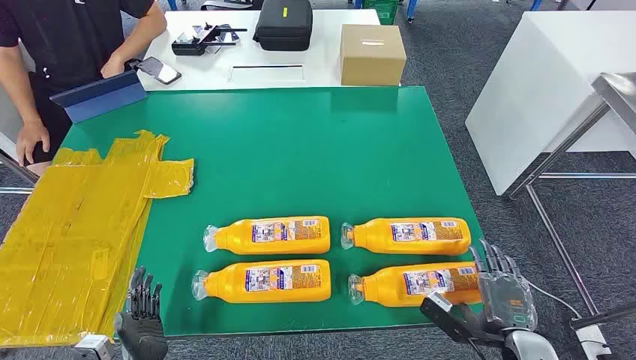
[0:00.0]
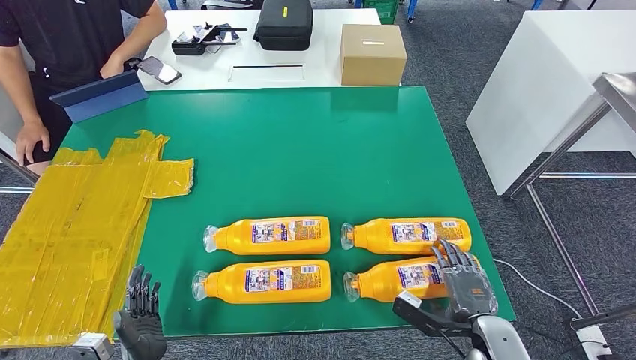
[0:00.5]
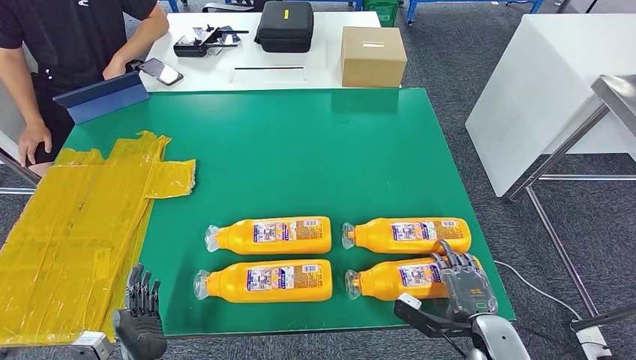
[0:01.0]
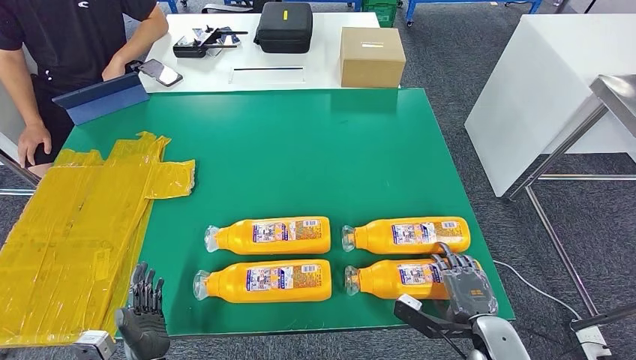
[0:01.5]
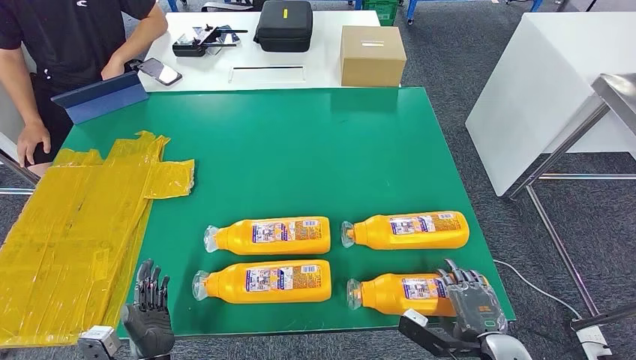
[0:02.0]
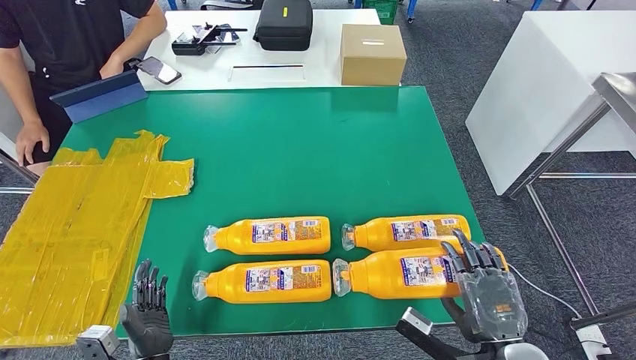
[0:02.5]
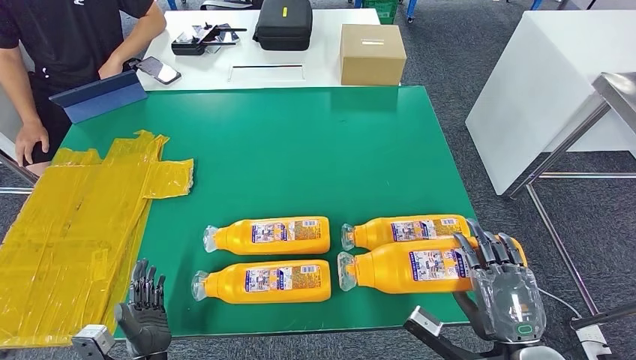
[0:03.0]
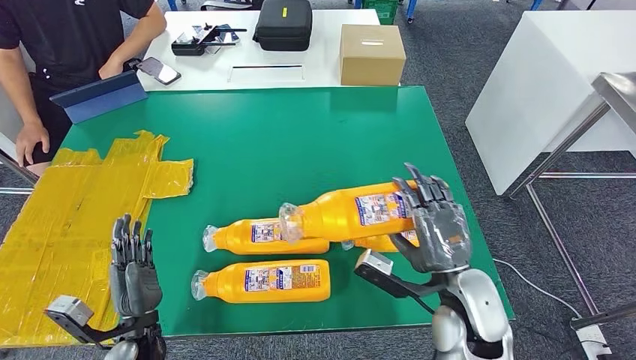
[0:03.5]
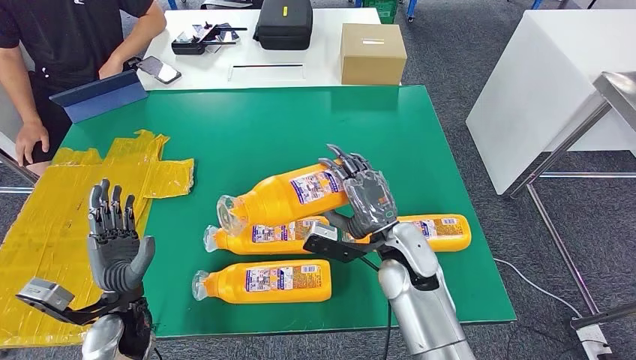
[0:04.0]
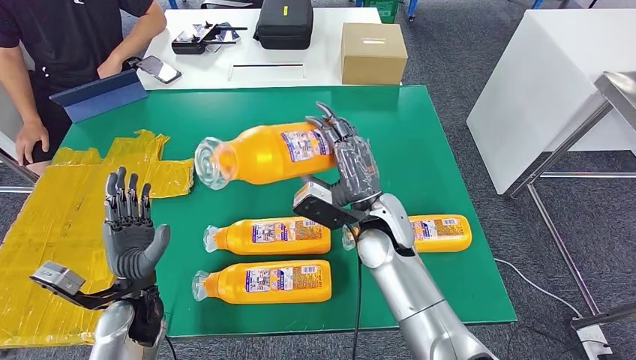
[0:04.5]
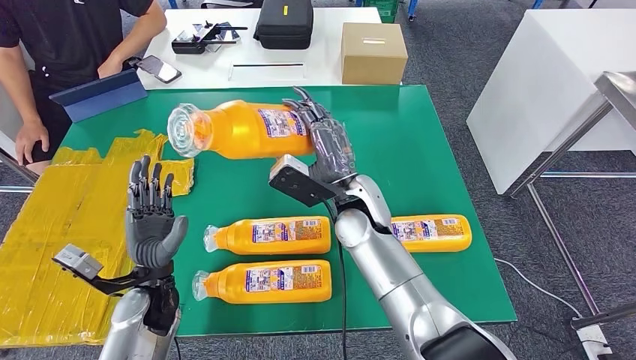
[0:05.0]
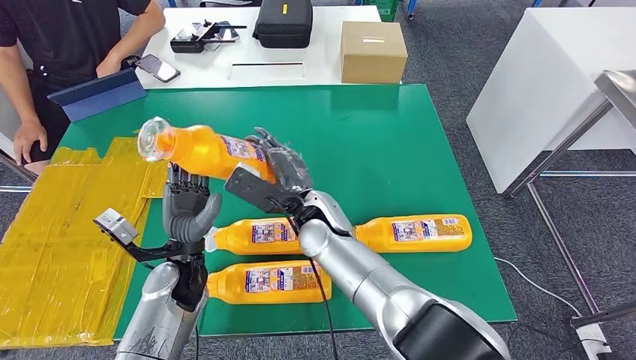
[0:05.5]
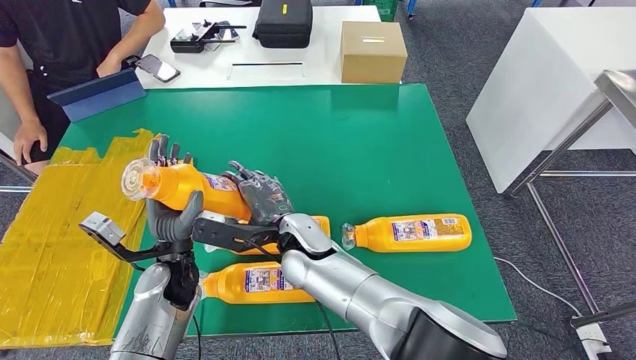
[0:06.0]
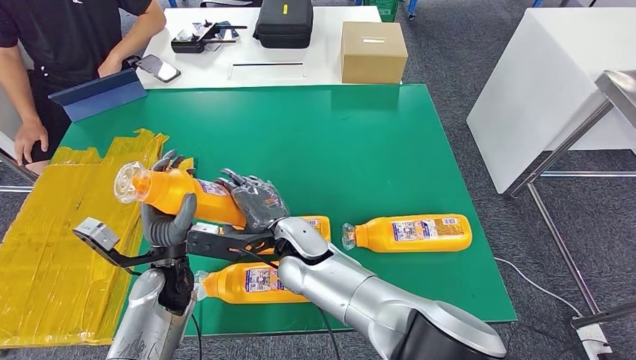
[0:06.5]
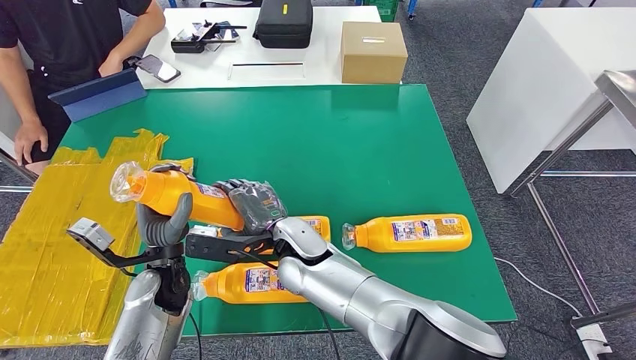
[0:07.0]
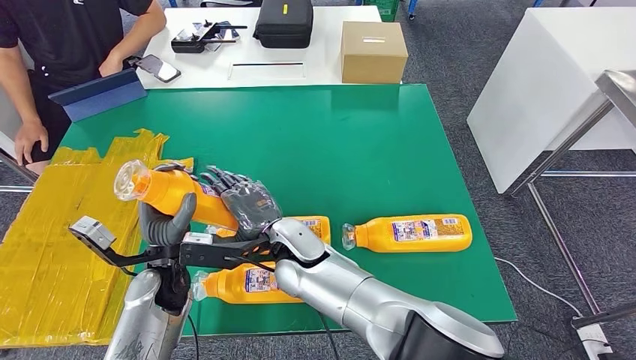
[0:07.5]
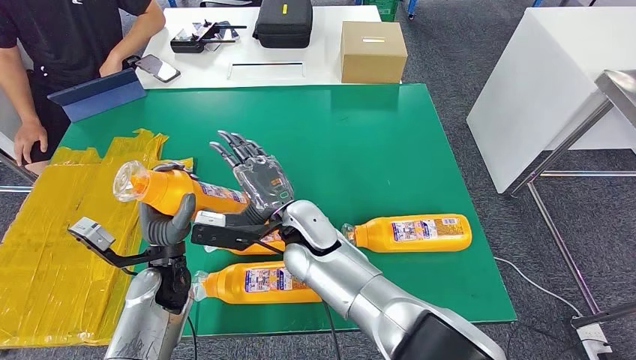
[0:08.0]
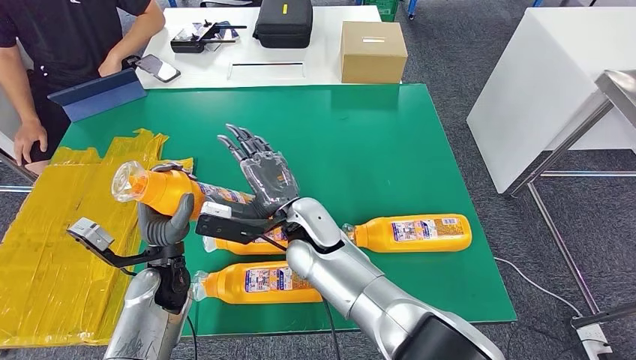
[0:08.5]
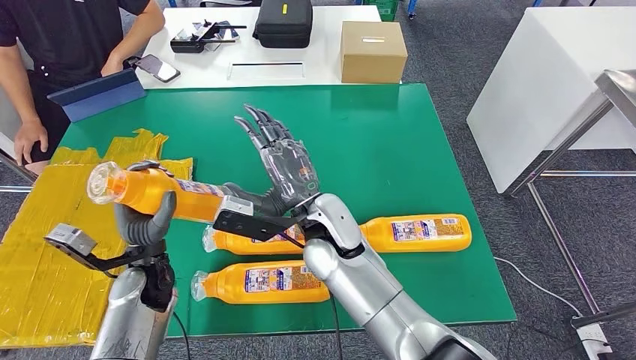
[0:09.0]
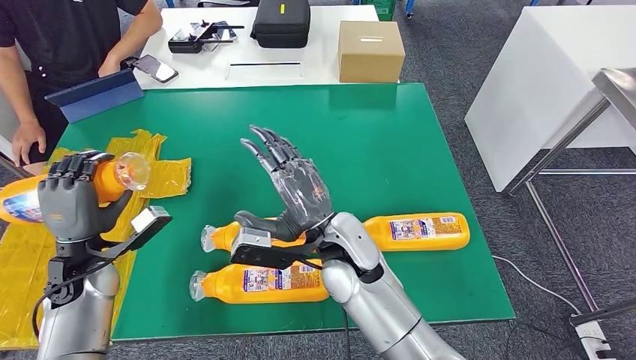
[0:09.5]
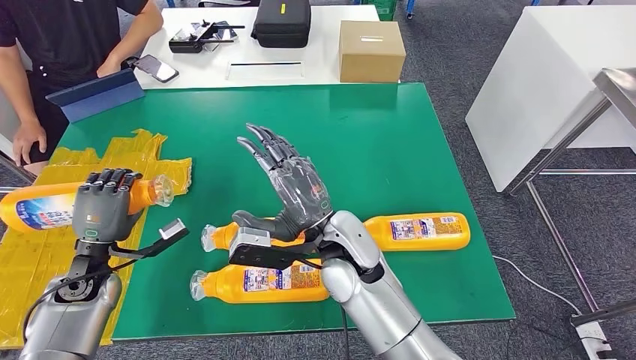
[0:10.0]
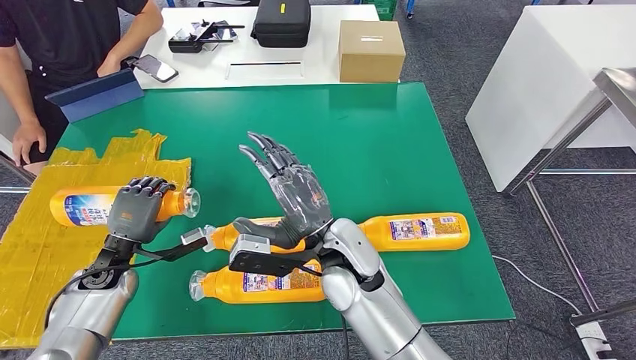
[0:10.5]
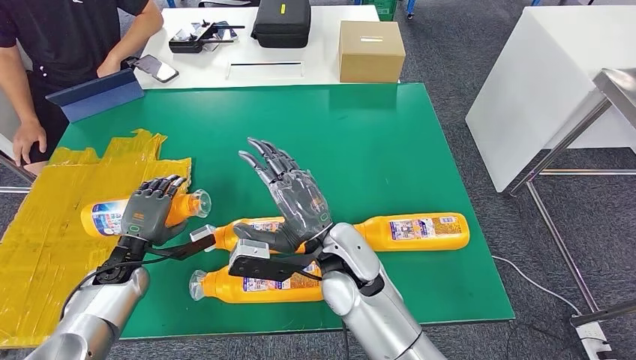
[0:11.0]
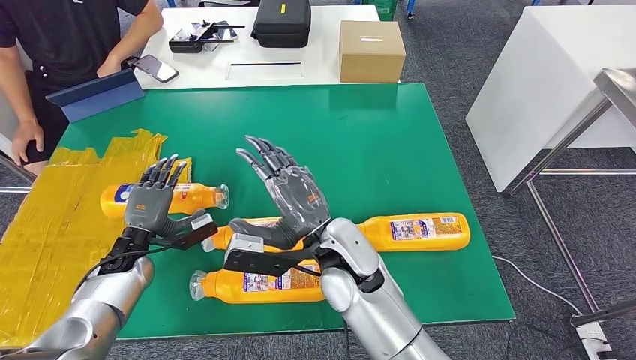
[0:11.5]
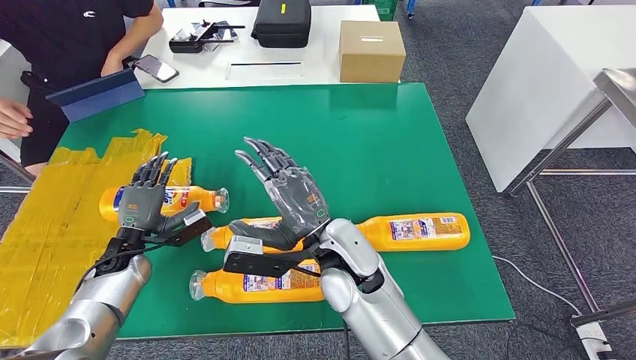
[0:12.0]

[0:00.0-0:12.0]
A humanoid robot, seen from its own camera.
Step, 0:00.0 to 0:04.5: Take the fast-moving consumer goods bottle from the table.
0:02.0 to 0:04.0: The right hand travels forward, to the left and upward by roughly 25 cm. Meanwhile the left hand moves upward and forward, some 15 cm.
0:06.0 to 0:08.0: The hands move only a little.
0:10.0 to 0:12.0: The left hand ends up some 5 cm from where it was.

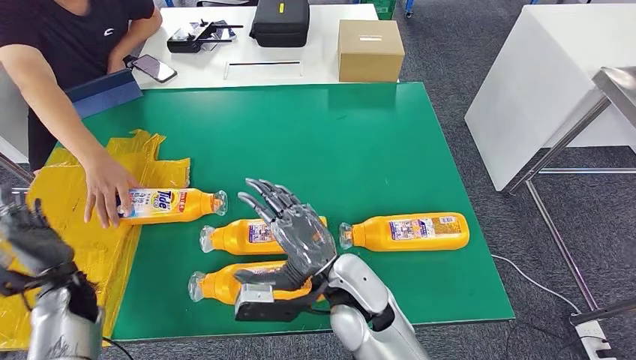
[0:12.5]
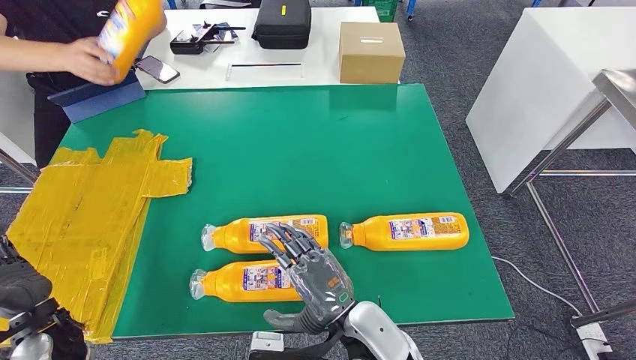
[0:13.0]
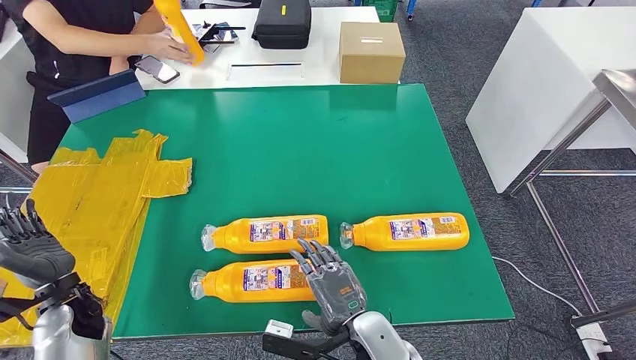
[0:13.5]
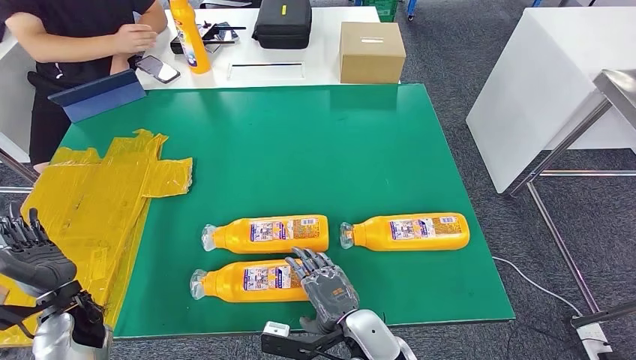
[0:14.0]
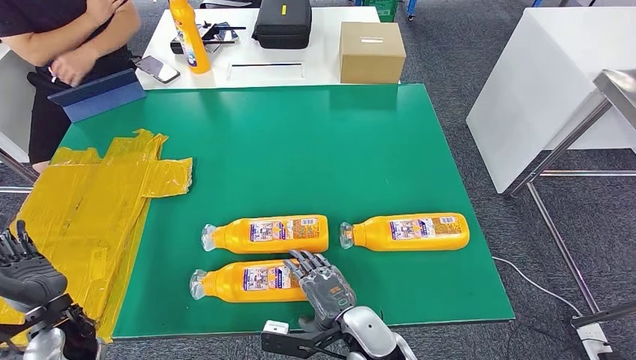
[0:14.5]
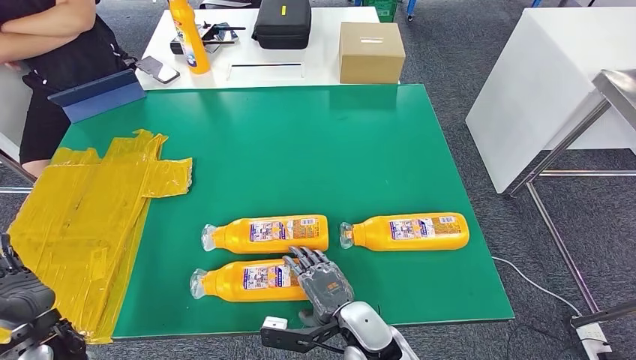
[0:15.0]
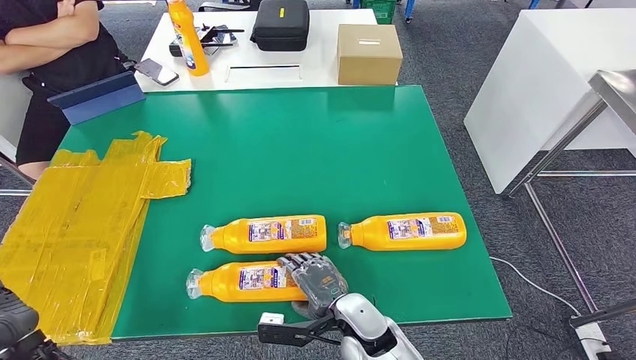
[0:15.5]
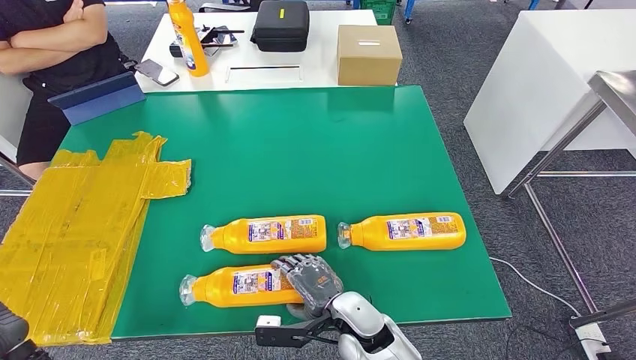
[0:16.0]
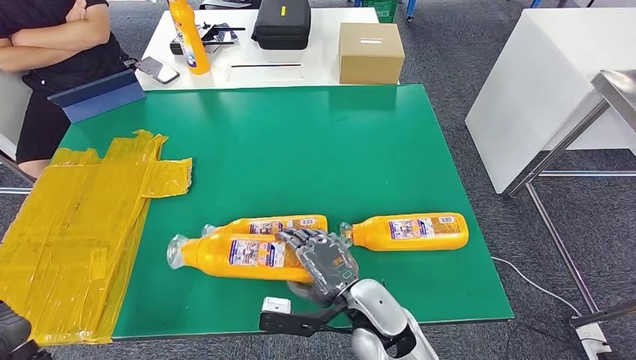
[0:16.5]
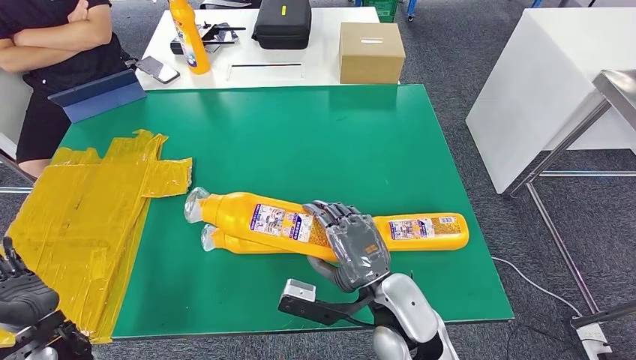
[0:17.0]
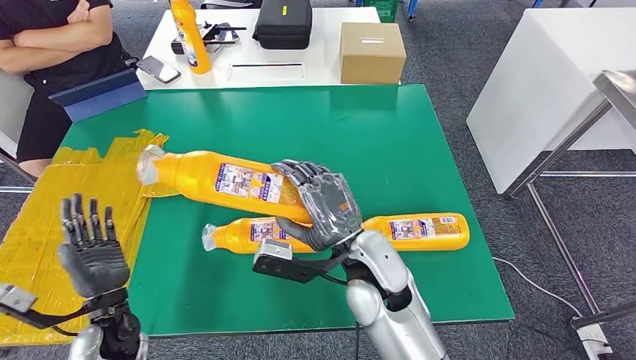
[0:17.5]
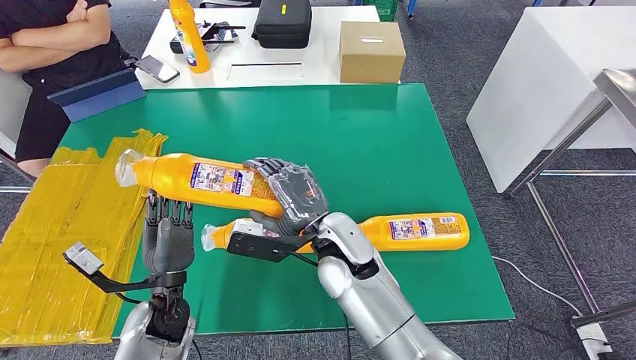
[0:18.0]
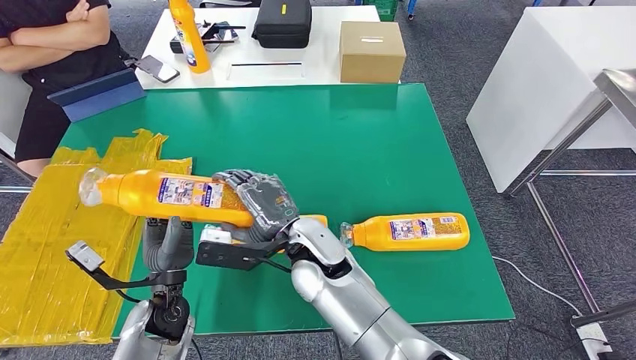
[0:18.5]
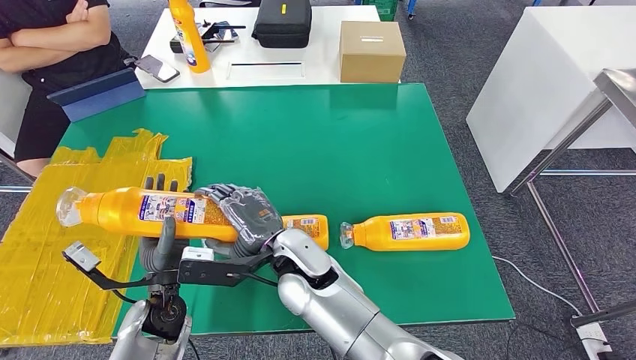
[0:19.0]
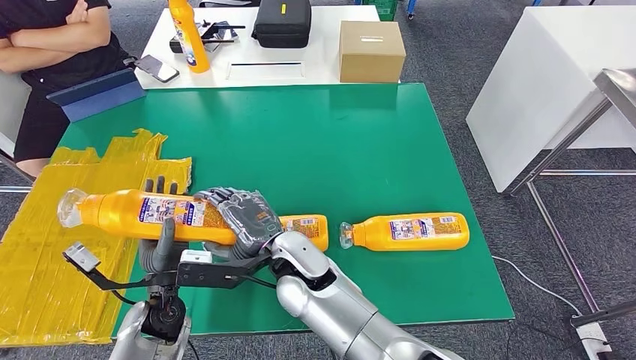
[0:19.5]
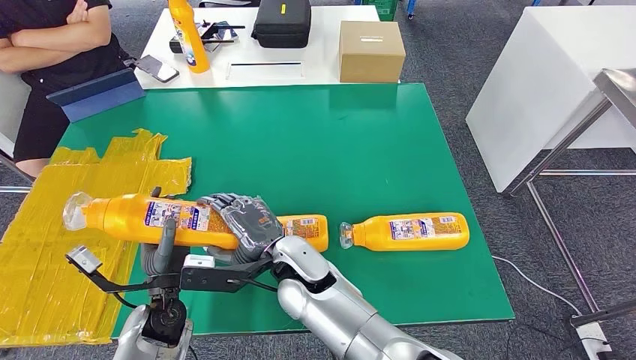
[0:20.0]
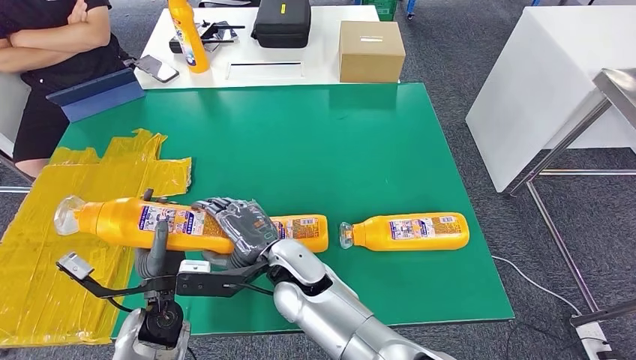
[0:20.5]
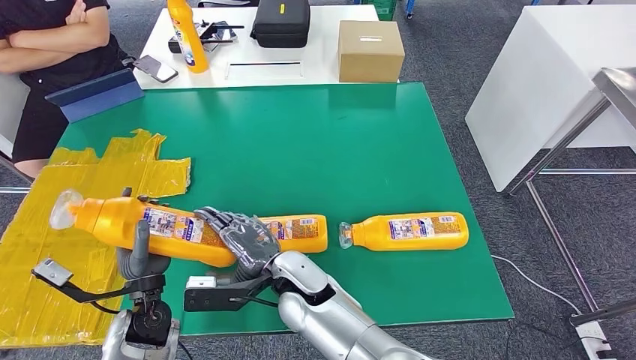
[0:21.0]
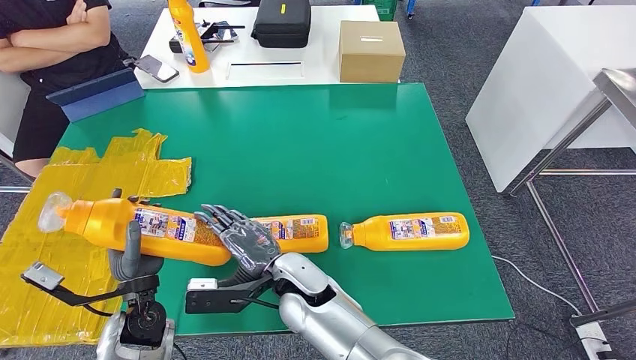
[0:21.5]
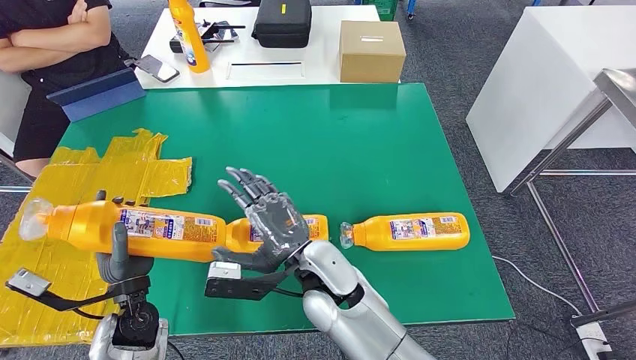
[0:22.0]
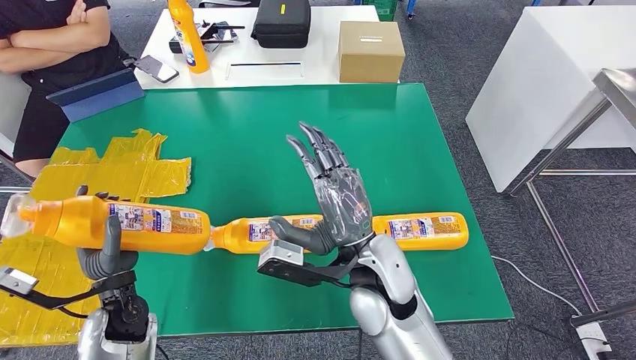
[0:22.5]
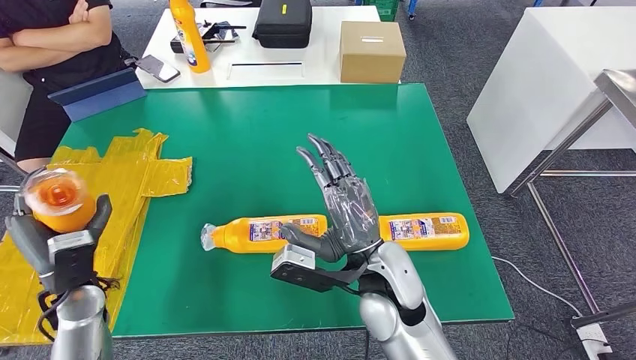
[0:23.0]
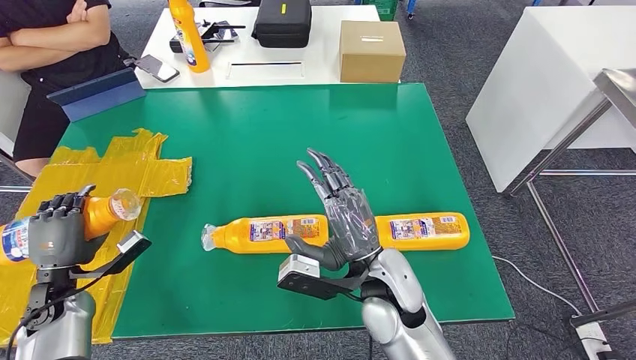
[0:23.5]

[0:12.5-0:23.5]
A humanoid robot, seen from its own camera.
Step, 0:16.0 to 0:20.0: Pick up the fast-moving consumer goods bottle from the table.
0:14.5 to 0:16.0: The left hand moves backward, about 5 cm.
0:18.0 to 0:20.0: The right hand goes some 10 cm to the left.
0:20.0 to 0:21.5: The hands move only a little.
0:21.5 to 0:23.5: The right hand goes roughly 15 cm to the right, while the left hand shifts some 15 cm to the left.
